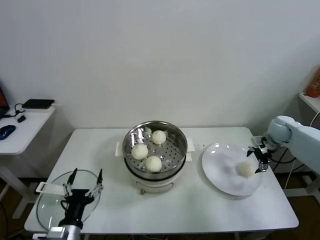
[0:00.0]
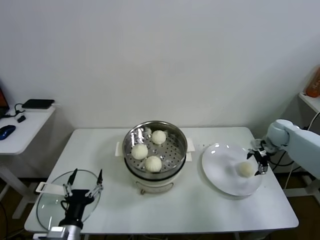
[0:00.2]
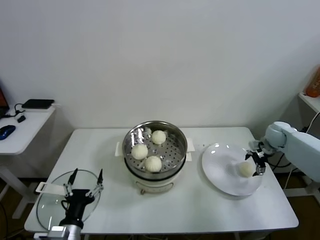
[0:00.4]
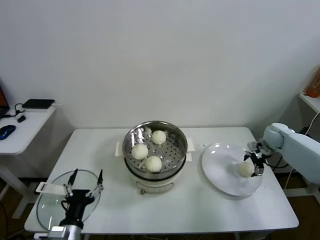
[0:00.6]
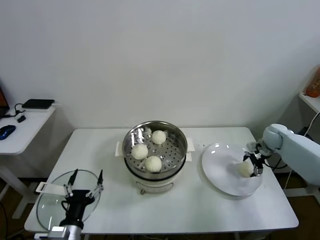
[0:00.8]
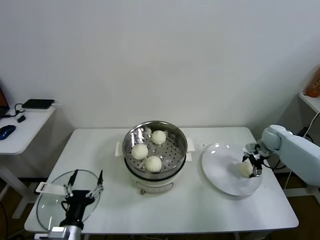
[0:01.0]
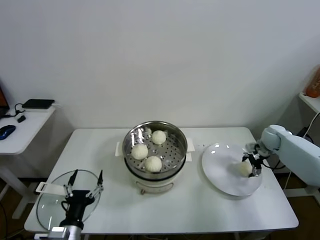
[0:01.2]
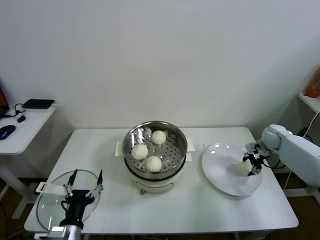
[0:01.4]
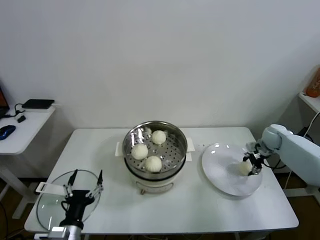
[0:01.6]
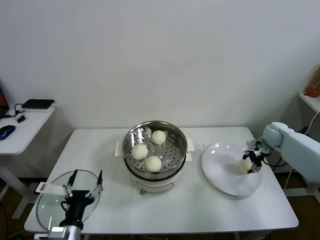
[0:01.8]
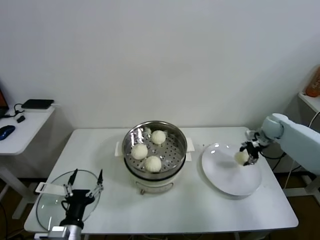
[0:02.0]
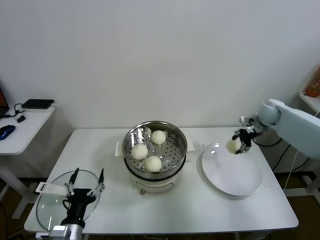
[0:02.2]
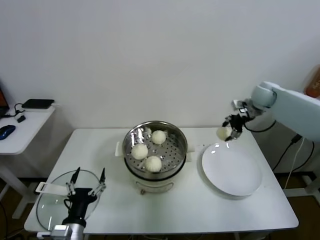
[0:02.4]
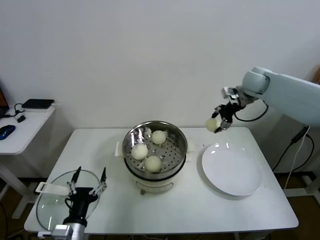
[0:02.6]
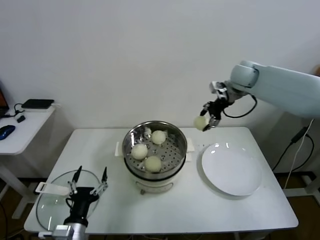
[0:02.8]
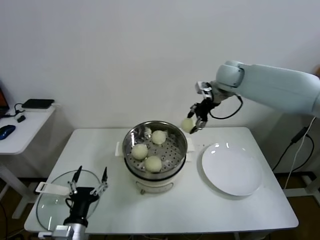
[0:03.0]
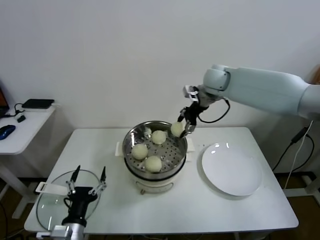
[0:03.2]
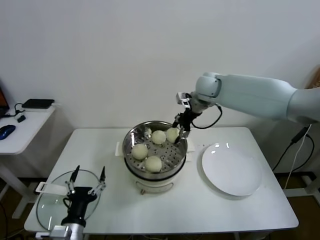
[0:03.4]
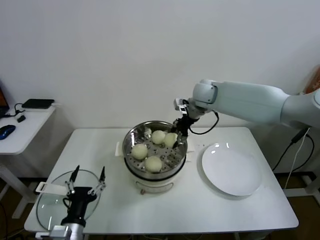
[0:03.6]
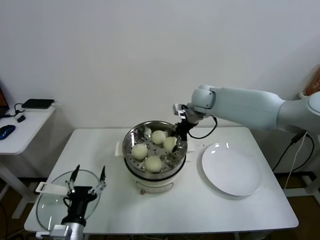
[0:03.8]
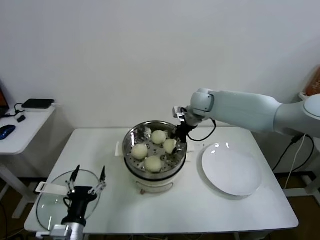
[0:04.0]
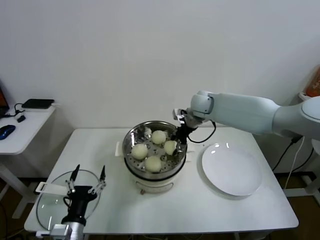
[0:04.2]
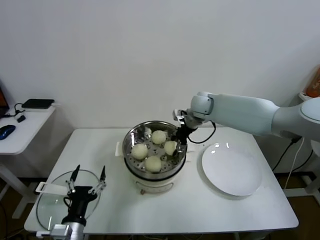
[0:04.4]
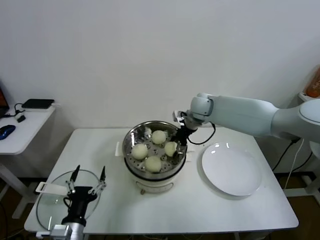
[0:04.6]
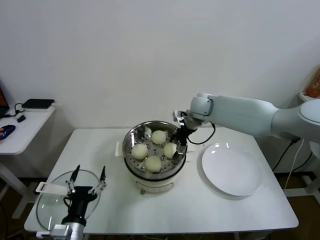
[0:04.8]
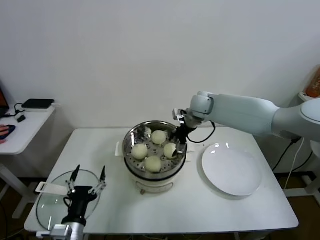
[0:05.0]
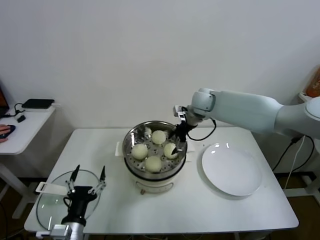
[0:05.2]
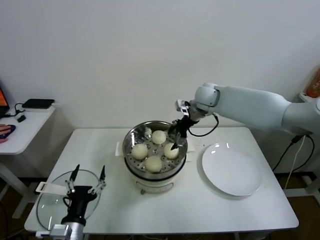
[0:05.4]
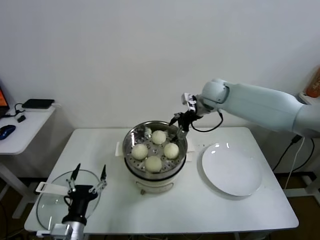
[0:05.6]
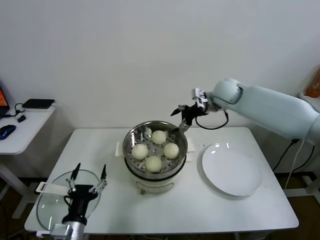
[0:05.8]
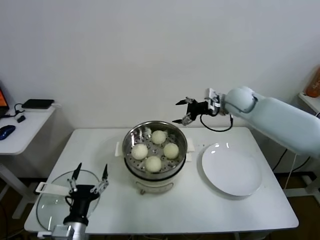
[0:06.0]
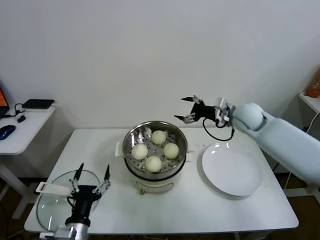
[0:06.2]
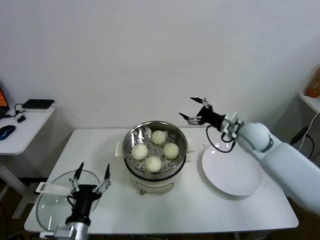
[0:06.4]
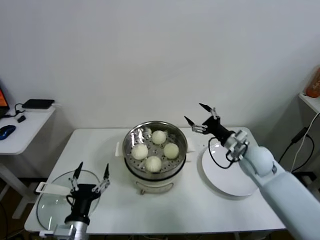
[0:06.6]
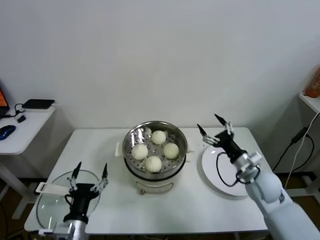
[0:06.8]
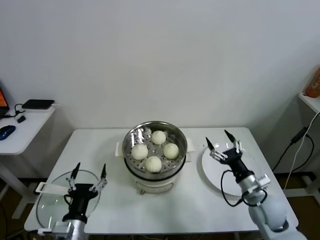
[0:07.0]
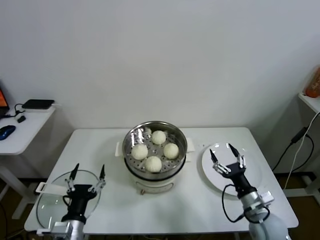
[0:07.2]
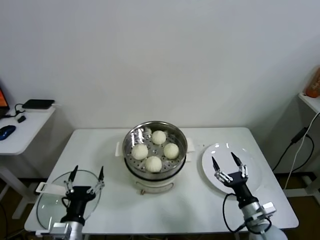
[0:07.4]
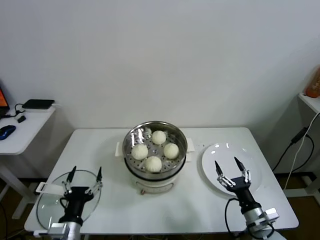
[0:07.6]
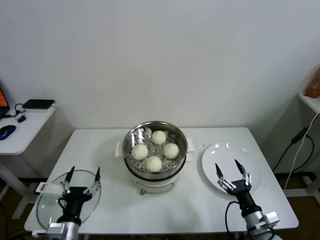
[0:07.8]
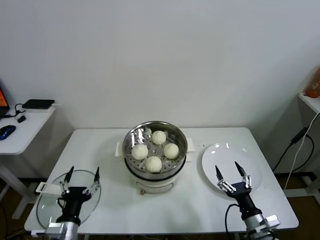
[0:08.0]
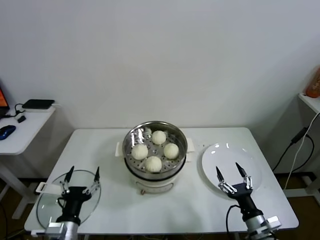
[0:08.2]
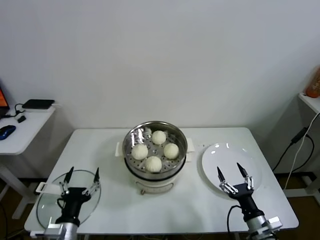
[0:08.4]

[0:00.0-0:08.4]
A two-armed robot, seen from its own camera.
Task of the whole recording: take steamed baozi put them in steamer.
Step, 0:01.6 to 0:04.8: Place the baozi on the steamer with right gripper.
0:00.0 to 0:01.4: The right gripper heads downward, covering about 5 cm, and closes up.
0:01.4 to 0:02.8: The right gripper goes some 30 cm upward and to the left.
0:02.8 to 0:04.2: The right gripper shifts about 15 cm to the left and downward.
0:04.2 to 0:05.6: The right gripper shifts by some 5 cm, and opens.
0:05.6 to 0:07.0: The right gripper is displaced backward, downward and to the right by about 40 cm.
0:07.0 to 0:08.4: The right gripper moves backward and downward, about 15 cm.
